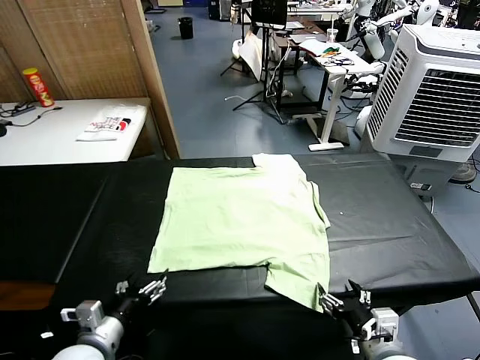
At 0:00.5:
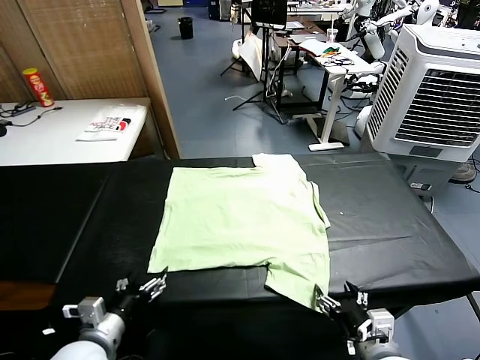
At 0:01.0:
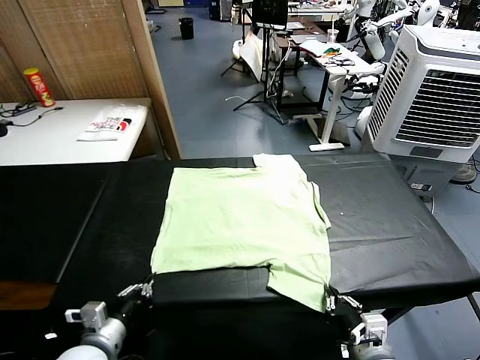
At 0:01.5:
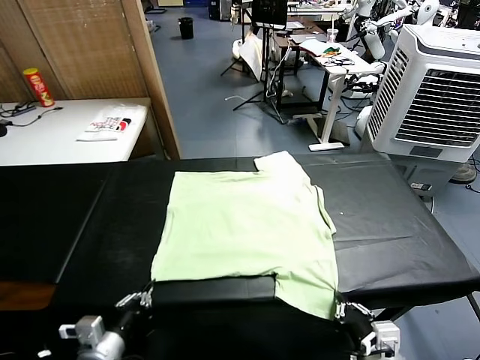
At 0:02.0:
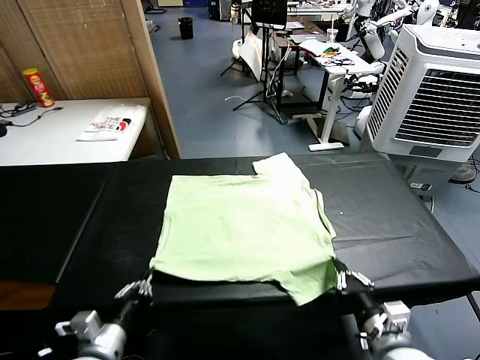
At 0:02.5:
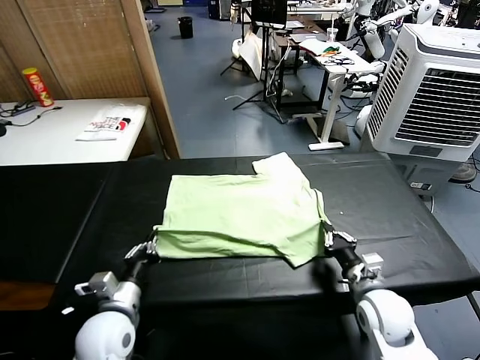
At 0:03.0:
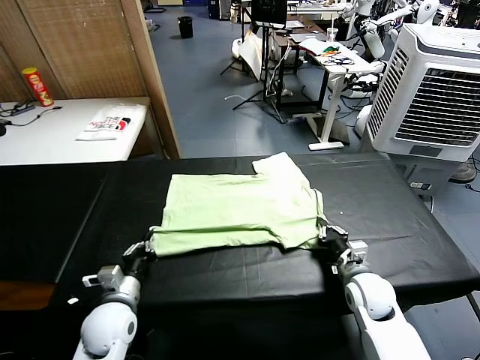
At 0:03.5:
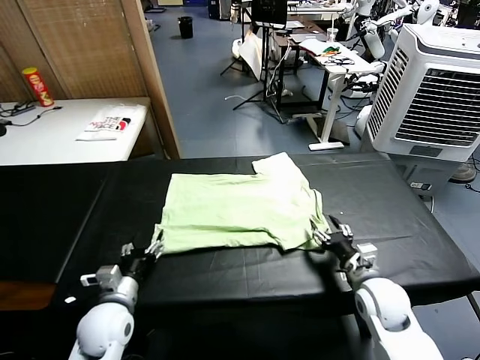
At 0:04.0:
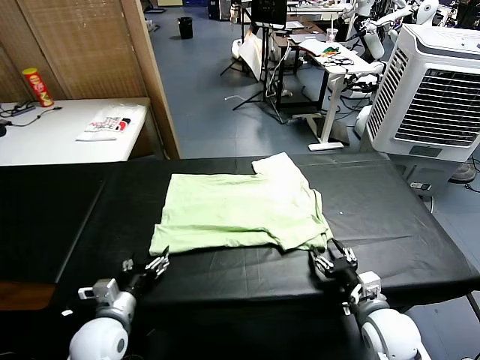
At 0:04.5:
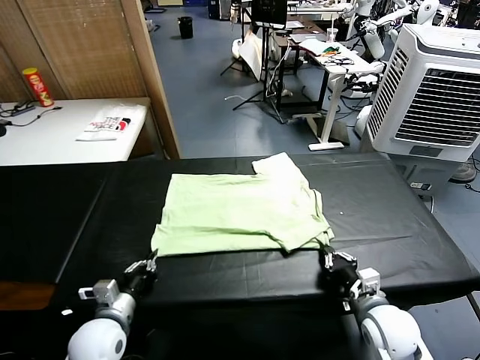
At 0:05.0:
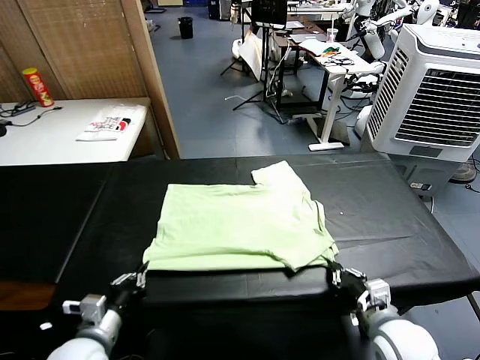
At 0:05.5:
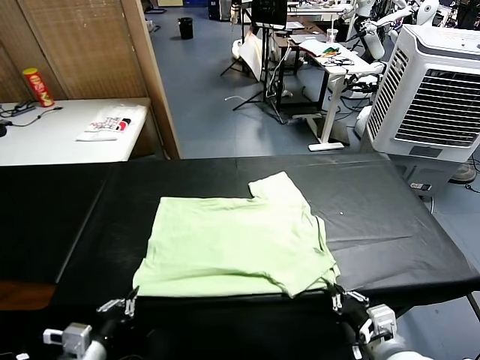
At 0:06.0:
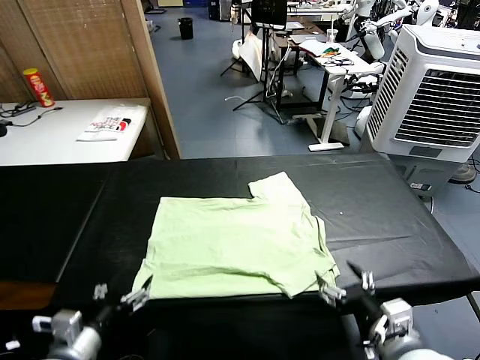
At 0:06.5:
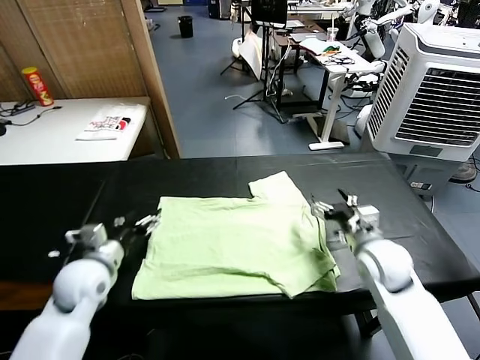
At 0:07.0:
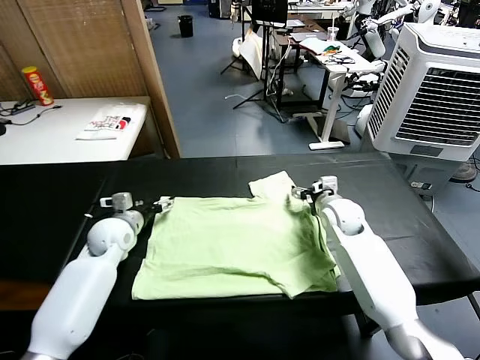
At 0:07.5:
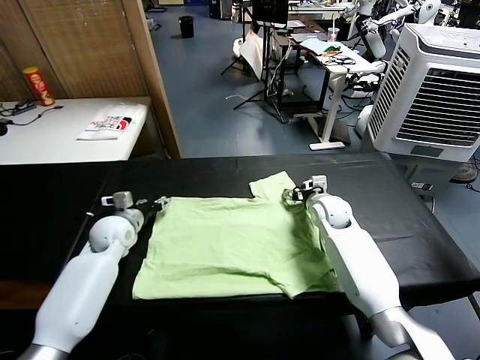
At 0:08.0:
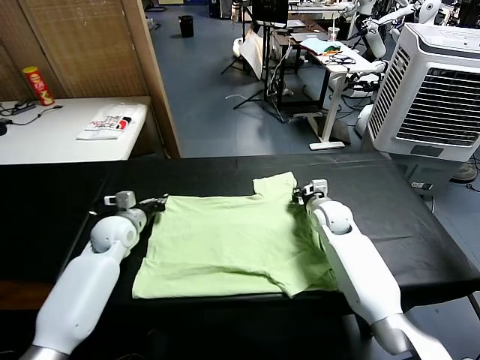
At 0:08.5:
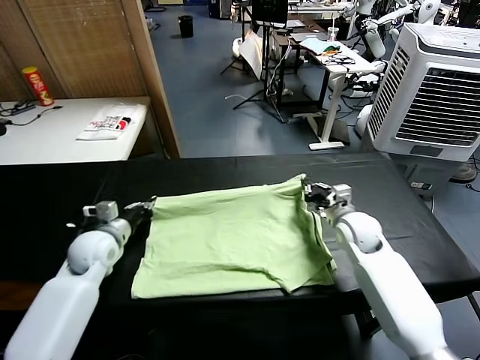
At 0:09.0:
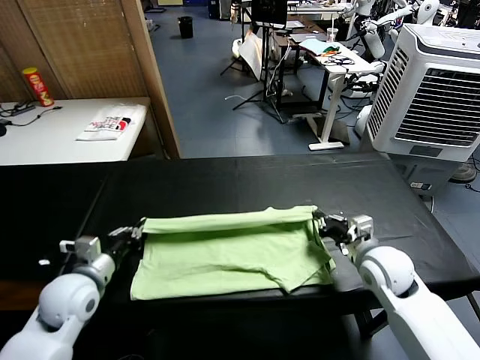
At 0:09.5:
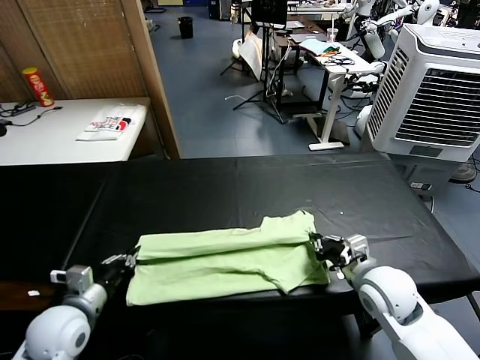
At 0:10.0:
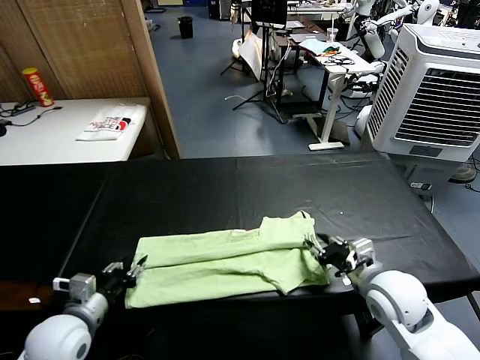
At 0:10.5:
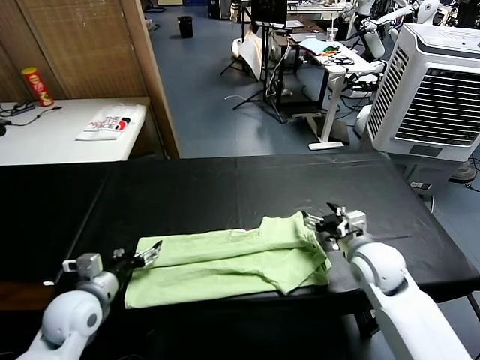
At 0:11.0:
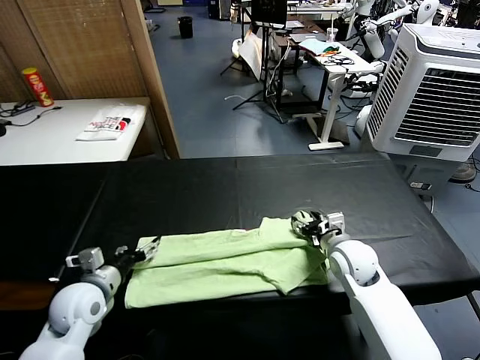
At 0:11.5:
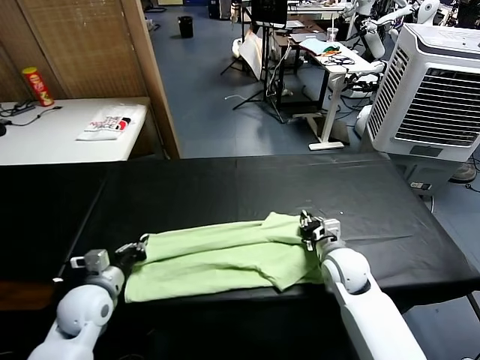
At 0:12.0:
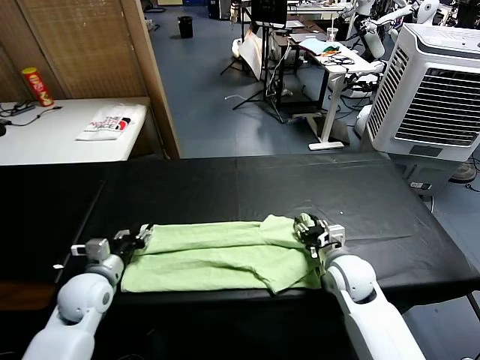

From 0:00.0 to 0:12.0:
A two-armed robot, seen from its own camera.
Task of the whole recording: fold and organize the clothes.
Step, from 0:00.0 to 0:01.0: use both grippers simultaneously to clamp the lower edge of the clothing fabric.
Step, from 0:01.5 to 0:03.0: use both grippers to drag the lower edge of the fabric forward and fold it over the upper edge.
Step, from 0:04.0 to 0:05.5: Drag the clothes downward with both gripper.
Step, from 0:06.0 to 0:07.5: use both grippers simultaneously to clamp the upper edge of the clothing fabric.
Step, from 0:08.0 to 0:10.0: use both grippers to drag the upper edge of the fabric backward and fold it over the lower edge.
From 0:02.0 to 0:04.0: The left gripper shifts approximately 5 cm forward, and opens its fingers, while the right gripper moves roughly 10 cm forward and comes back, and opens up.
From 0:04.0 to 0:06.0: The right gripper goes about 10 cm upward, and opens its fingers. The left gripper moves upward and backward, some 10 cm, and closes, then opens again.
From 0:06.0 to 0:08.0: The two grippers go roughly 30 cm forward. The right gripper closes its fingers. The left gripper closes.
From 0:08.0 to 0:10.0: Both grippers move backward, some 20 cm. The left gripper opens up. The right gripper opens.
From 0:10.0 to 0:12.0: The right gripper travels downward and forward by about 10 cm, and closes, then reopens. Meanwhile the left gripper is displaced forward by about 10 cm, and closes, then opens again.

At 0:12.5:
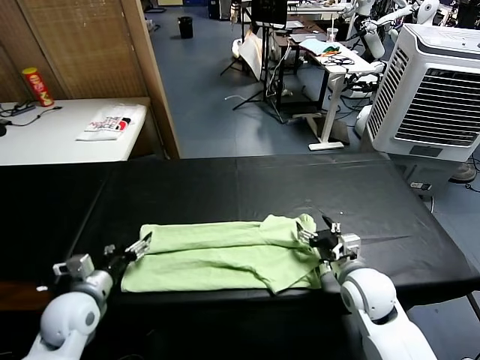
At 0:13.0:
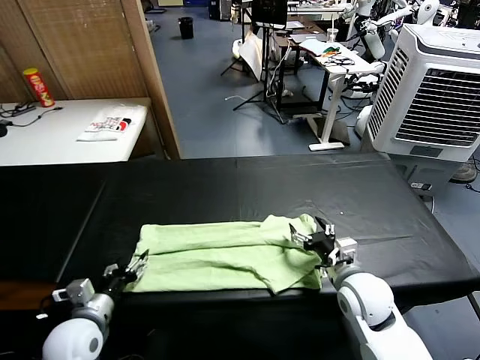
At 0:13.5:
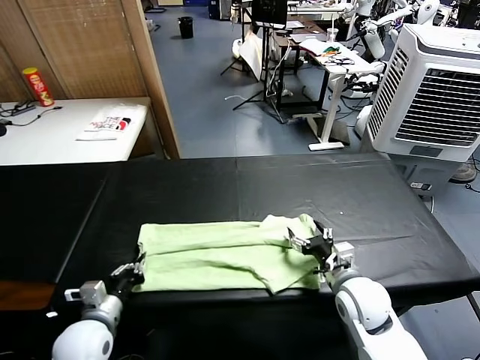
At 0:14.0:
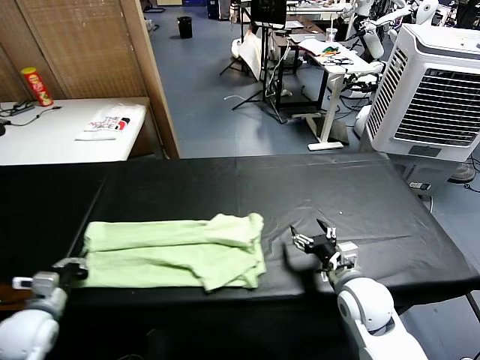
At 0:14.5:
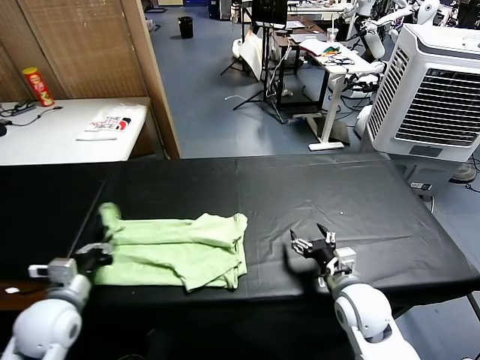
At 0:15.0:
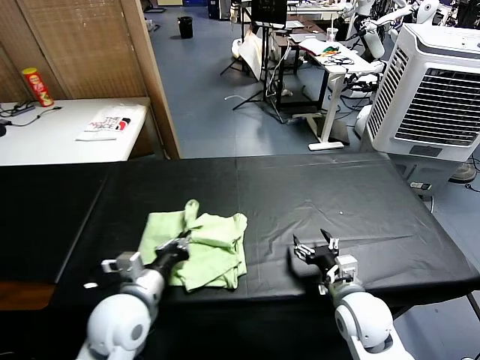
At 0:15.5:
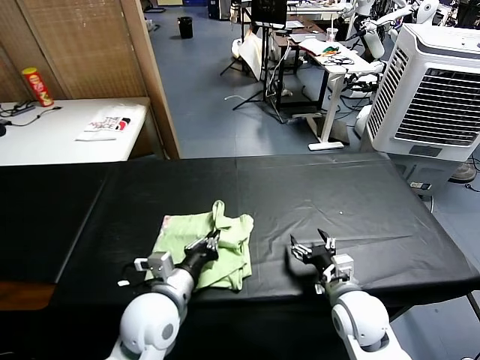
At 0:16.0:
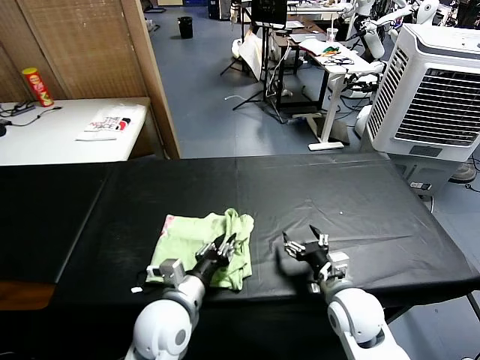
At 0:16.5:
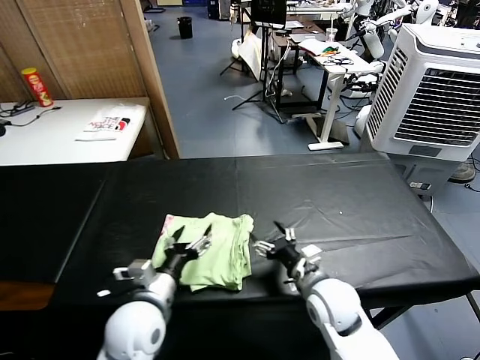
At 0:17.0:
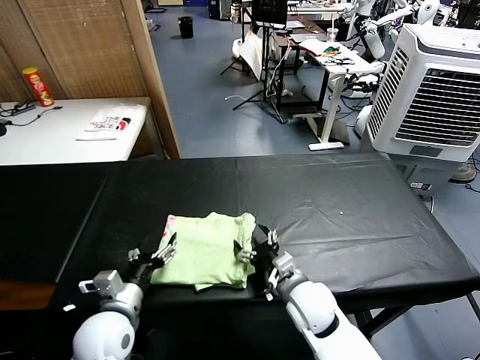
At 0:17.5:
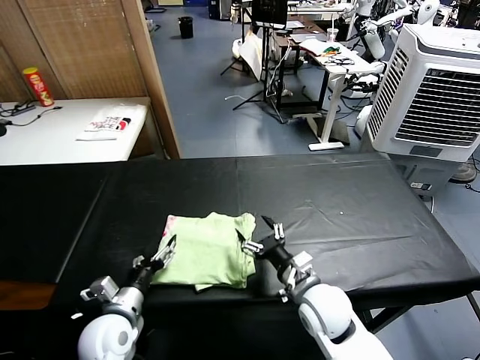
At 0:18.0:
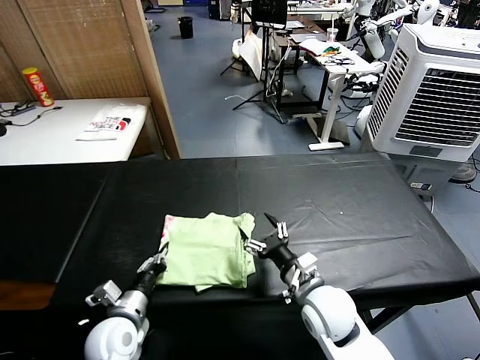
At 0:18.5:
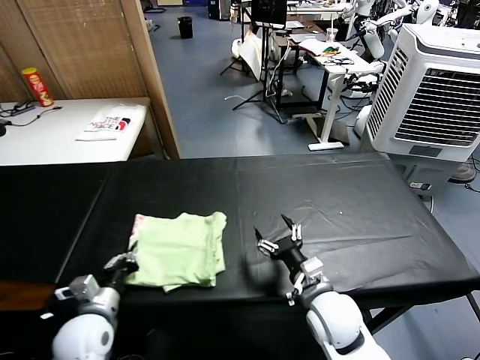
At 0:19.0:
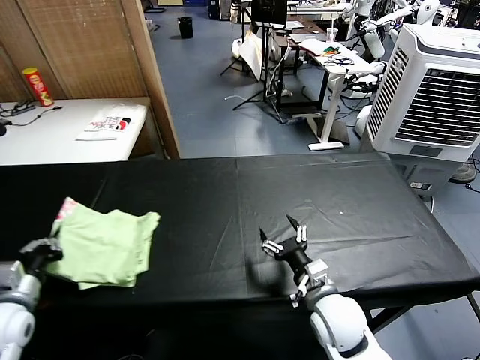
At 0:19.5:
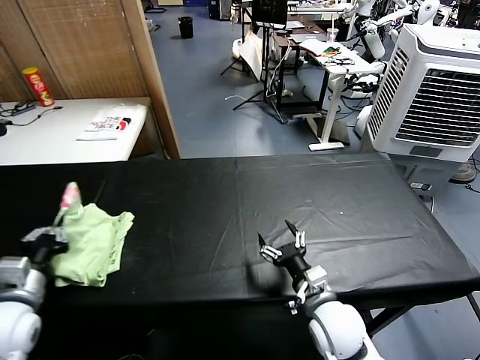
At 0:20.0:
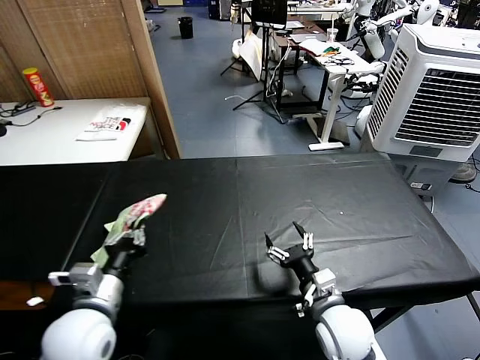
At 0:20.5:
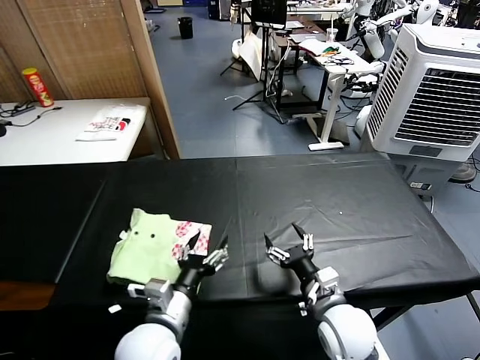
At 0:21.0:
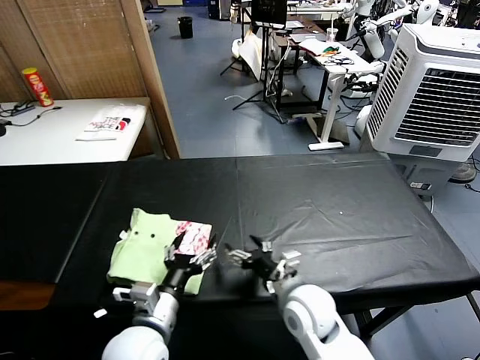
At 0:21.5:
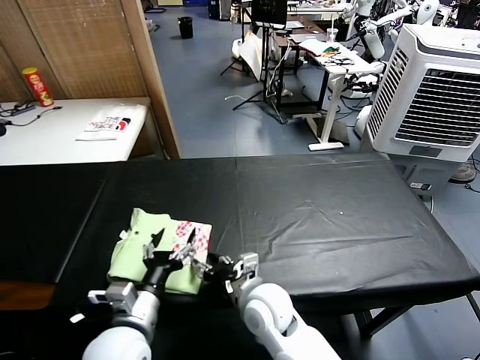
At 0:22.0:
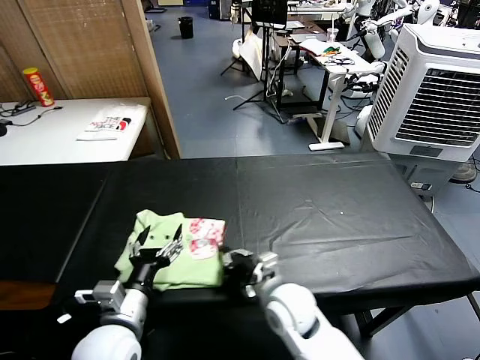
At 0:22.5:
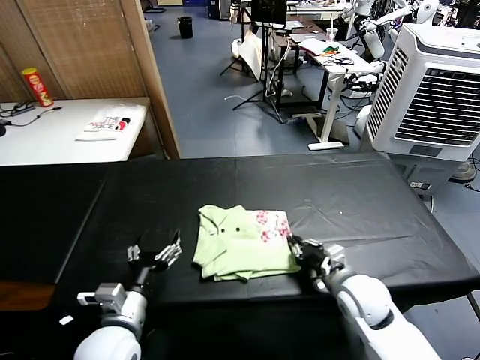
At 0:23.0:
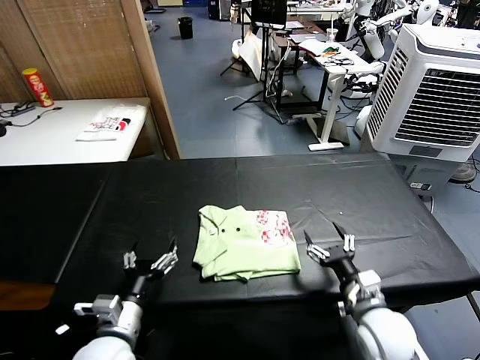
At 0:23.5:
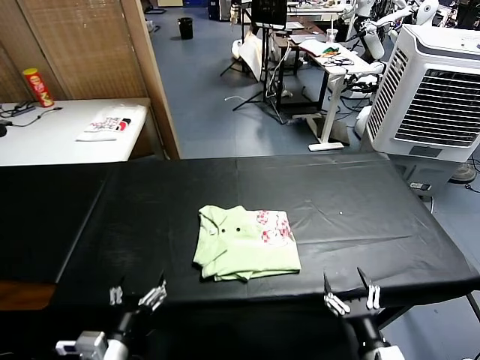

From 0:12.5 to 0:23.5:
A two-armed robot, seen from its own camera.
Task of the whole recording: fold and organize the clothes.
Step, from 0:13.5 to 0:16.0: use the left gripper to drag the left edge of the fabric to the left and folds it over the right edge.
Step, from 0:16.5 to 0:20.0: Flip the folded clothes over with left gripper.
Step, from 0:20.5 to 0:22.5: Drag the clothes to the center of the table.
From 0:12.5 to 0:14.5: The left gripper travels to the left and back again, roughly 10 cm each way, and closes.
From 0:14.5 to 0:16.0: The left gripper goes some 20 cm to the right.
From 0:16.0 to 0:18.0: The right gripper moves to the left, approximately 5 cm. The left gripper moves to the left and downward, roughly 15 cm, and opens and closes again.
From 0:18.0 to 0:20.0: The left gripper heads upward, covering about 15 cm, and reaches some 15 cm to the left, then returns.
From 0:20.0 to 0:21.5: The right gripper is displaced to the left by approximately 15 cm. Meanwhile the left gripper moves to the right, about 5 cm, and opens.
From 0:21.5 to 0:23.5: The right gripper travels to the right and backward by approximately 30 cm, and closes, then opens again, while the left gripper heads backward and to the left, covering about 10 cm.

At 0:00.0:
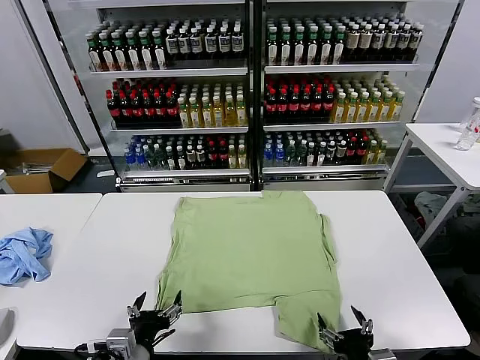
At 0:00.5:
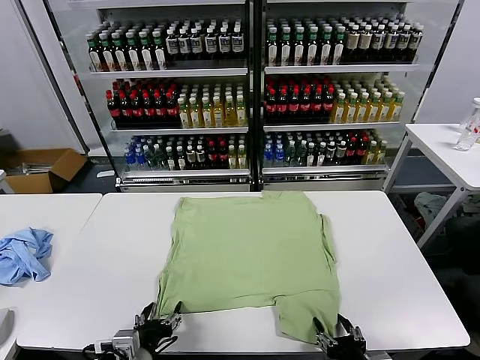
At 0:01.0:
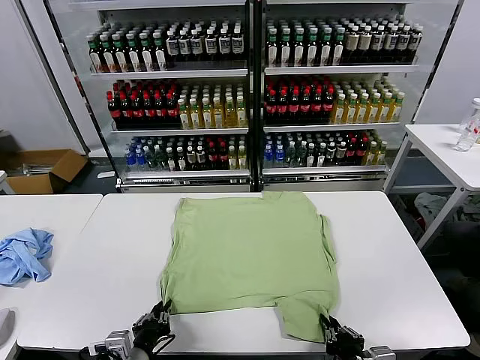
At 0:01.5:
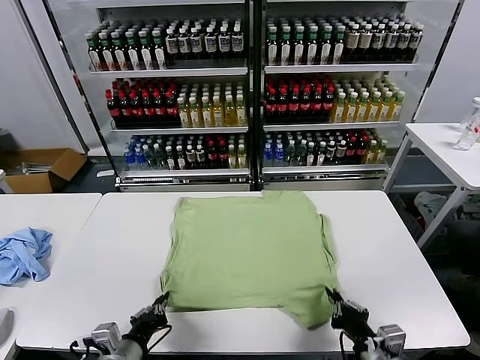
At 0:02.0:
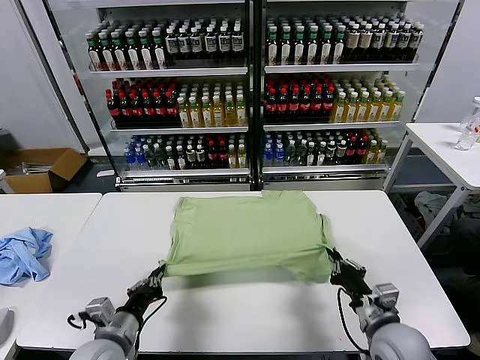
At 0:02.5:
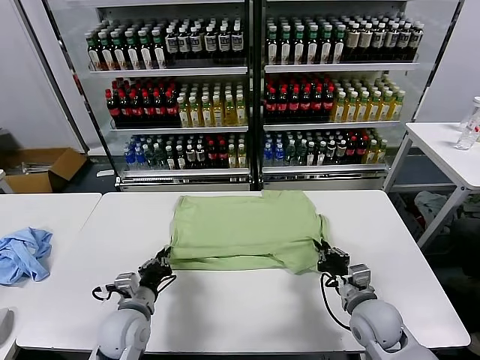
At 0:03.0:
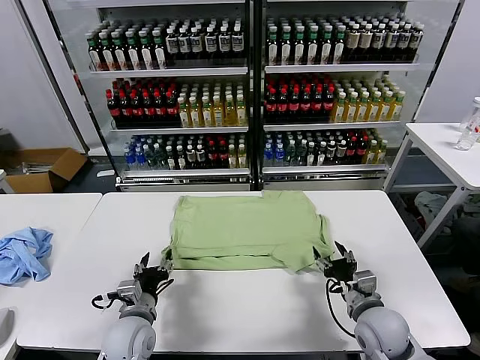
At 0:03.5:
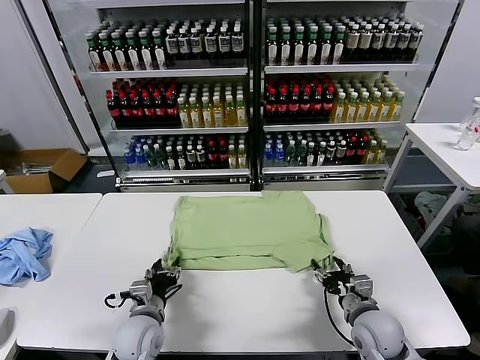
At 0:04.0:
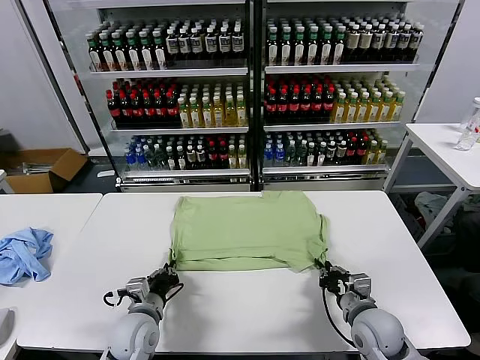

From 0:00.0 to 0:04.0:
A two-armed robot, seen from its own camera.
Task of the whole recording: fold and organize the clothes.
Step, from 0:00.0 to 0:01.0: use both grippers simultaneously to clamp the lower edge of the clothing fabric.
Step, from 0:01.5 to 0:02.5: use both grippers to drag the lower edge of the fabric forward and fold it over the upper edge.
From 0:02.0 to 0:04.0: The right gripper opens and closes again, while the left gripper goes approximately 5 cm forward, and opens and closes again.
